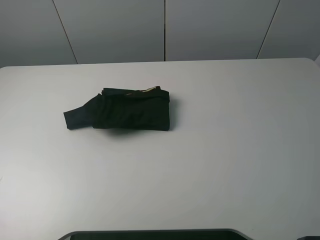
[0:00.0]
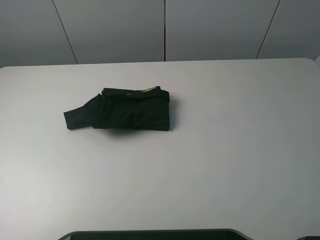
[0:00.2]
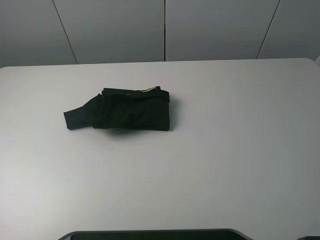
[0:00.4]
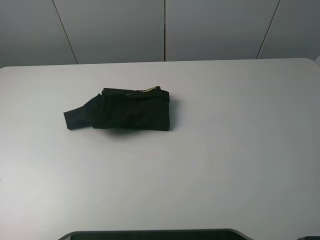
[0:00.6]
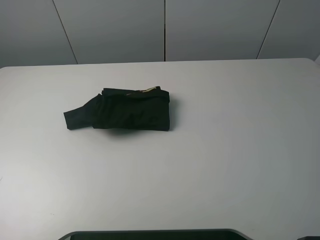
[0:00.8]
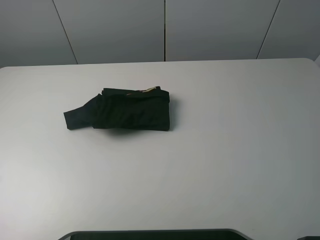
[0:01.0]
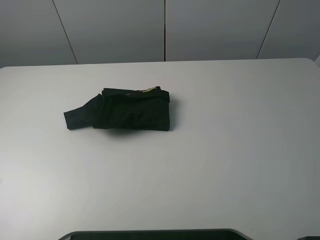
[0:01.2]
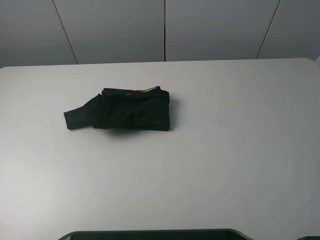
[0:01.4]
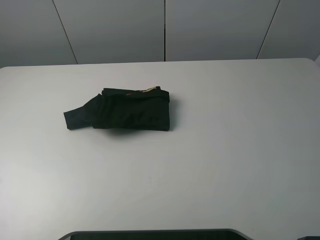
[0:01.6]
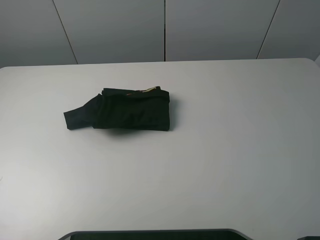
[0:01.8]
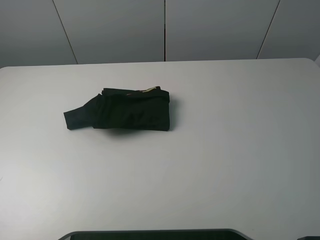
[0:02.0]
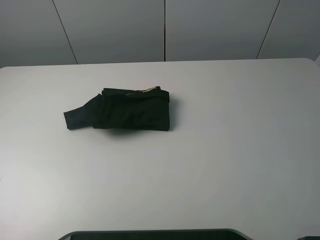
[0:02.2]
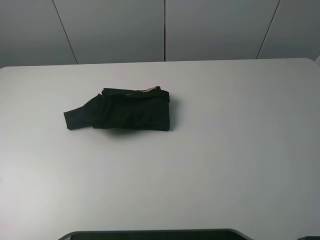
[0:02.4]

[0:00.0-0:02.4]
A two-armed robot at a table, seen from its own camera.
Task of the whole recording: fold the clothes on the table.
0:01.2 to 0:02.4: Neither gripper changes place.
